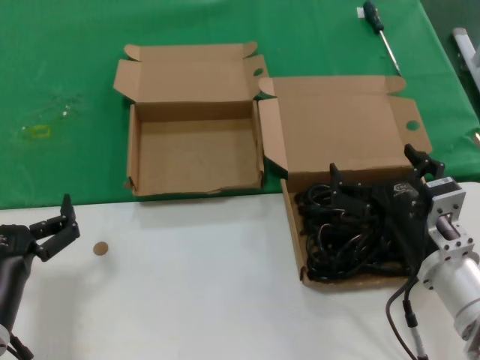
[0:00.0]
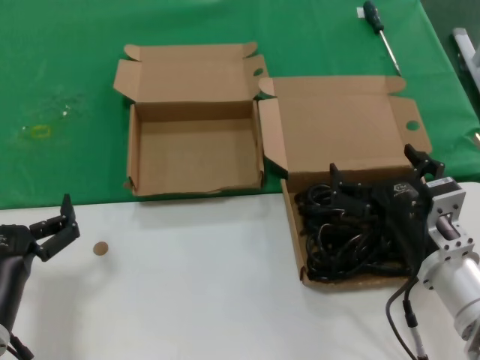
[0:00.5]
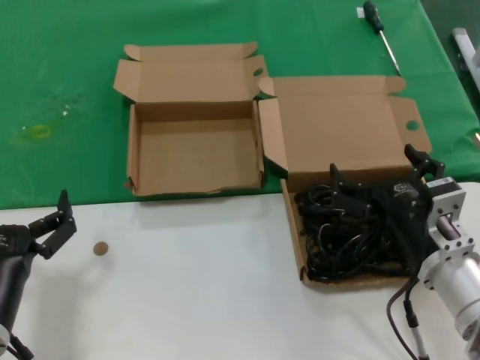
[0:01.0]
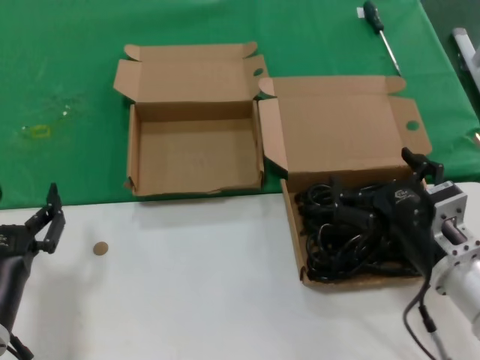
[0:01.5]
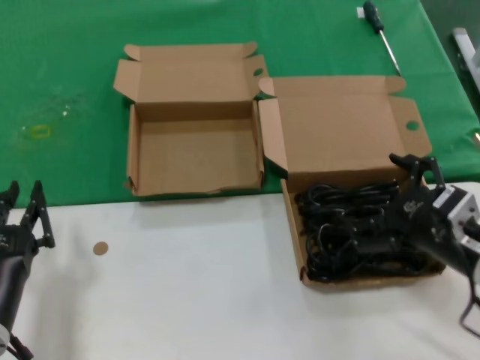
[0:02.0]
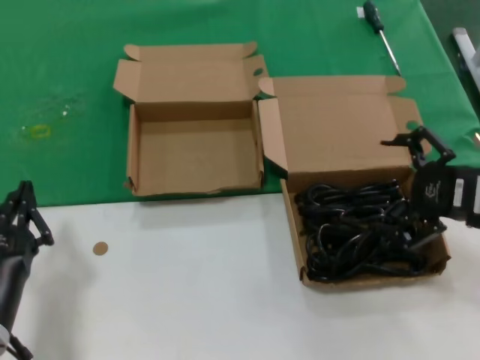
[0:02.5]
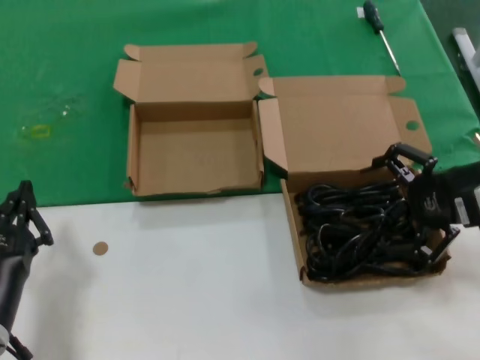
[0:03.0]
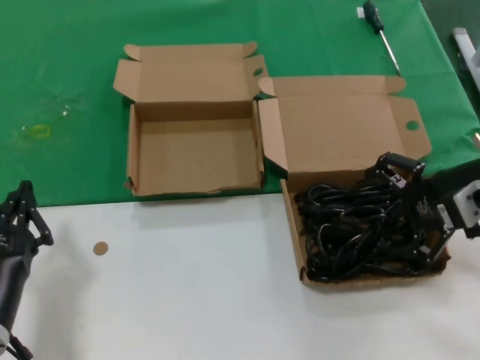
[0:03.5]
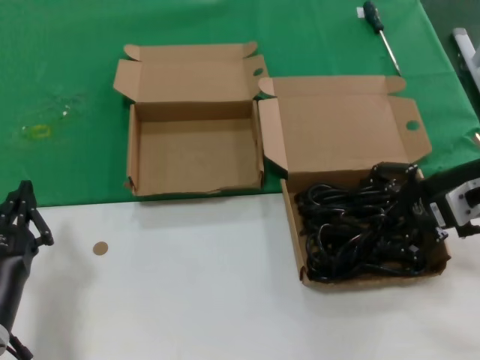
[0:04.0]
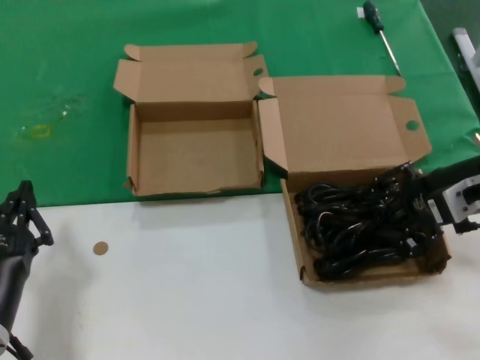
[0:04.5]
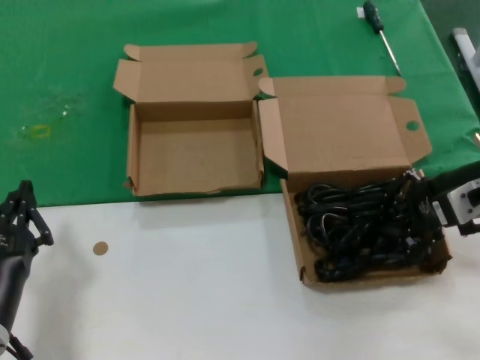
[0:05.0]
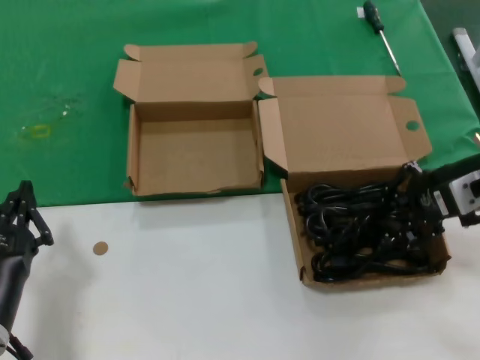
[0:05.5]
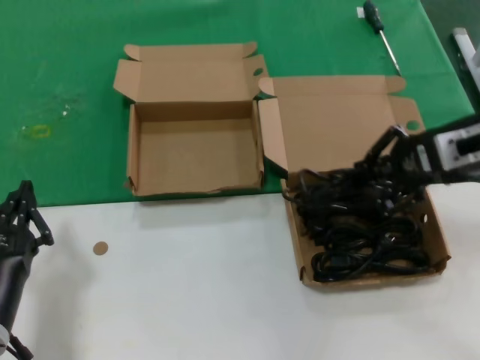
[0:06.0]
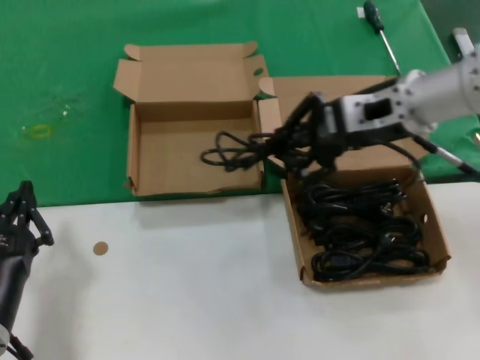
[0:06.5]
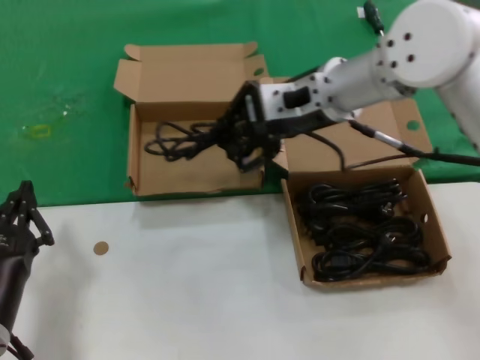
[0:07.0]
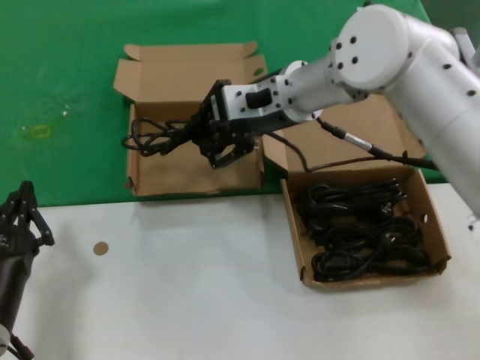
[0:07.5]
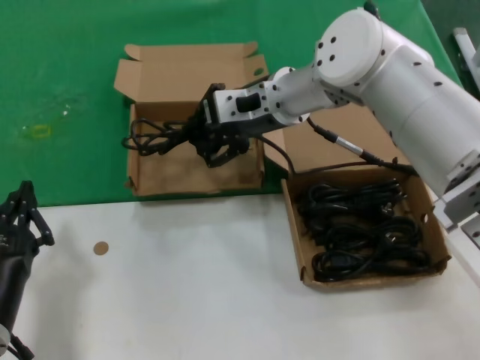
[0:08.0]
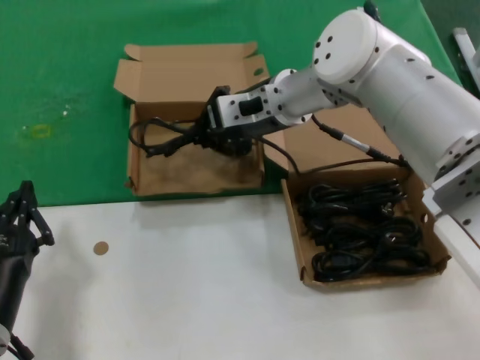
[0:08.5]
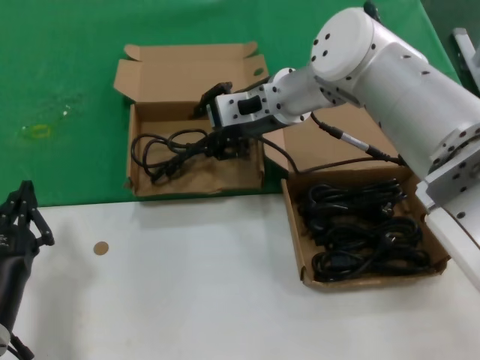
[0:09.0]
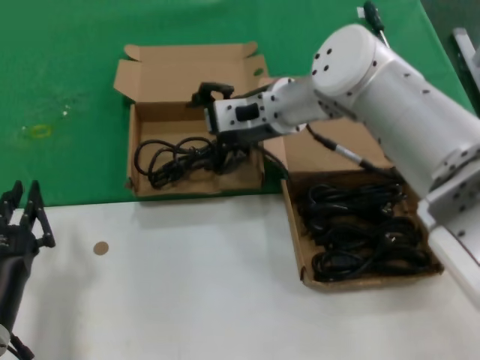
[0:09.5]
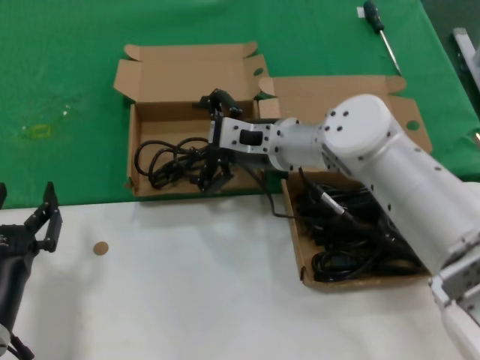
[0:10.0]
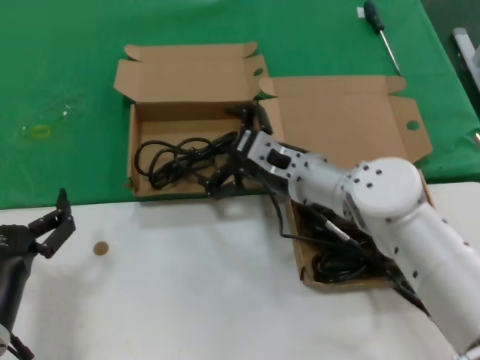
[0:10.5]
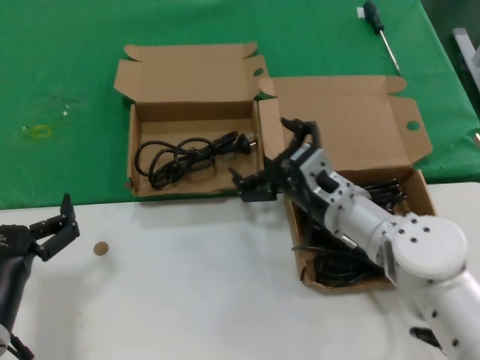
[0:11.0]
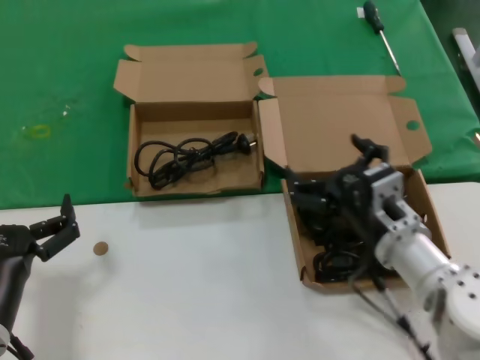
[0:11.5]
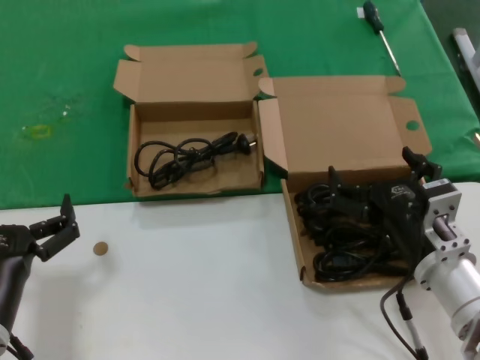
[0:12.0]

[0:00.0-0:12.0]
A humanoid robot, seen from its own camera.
Task of the whole recording: take the parts from the box containing them and put them into an empty box.
Step, 0:00.0 to 0:05.0: Grasp the data cable.
Step, 0:05.5 to 0:09.0: Place the data cable in the another box.
0:00.0 to 0:02.0: The right hand travels to the right by roughly 5 cm.
0:02.0 to 0:04.0: The right hand moves forward, upward and to the right, some 15 cm.
0:04.0 to 0:06.0: The right hand goes roughly 5 cm upward.
0:06.0 to 0:08.0: The right hand travels to the left and forward by some 25 cm.
0:08.0 to 0:10.0: The right hand heads downward, covering some 10 cm.
0:10.0 to 0:12.0: The right hand heads backward, to the right and downward, covering about 25 cm.

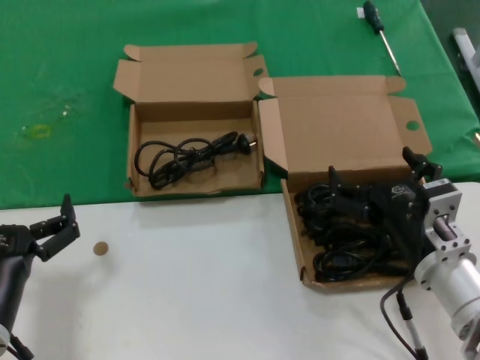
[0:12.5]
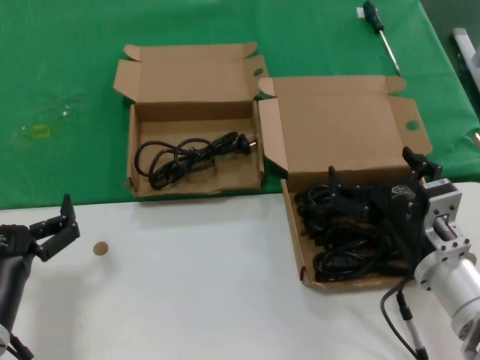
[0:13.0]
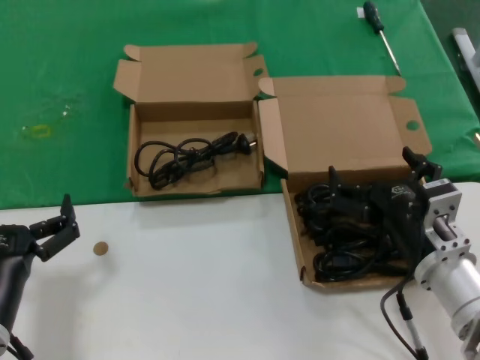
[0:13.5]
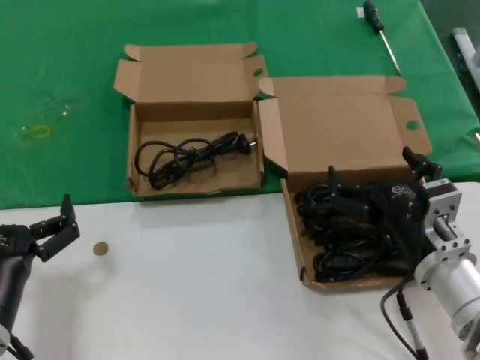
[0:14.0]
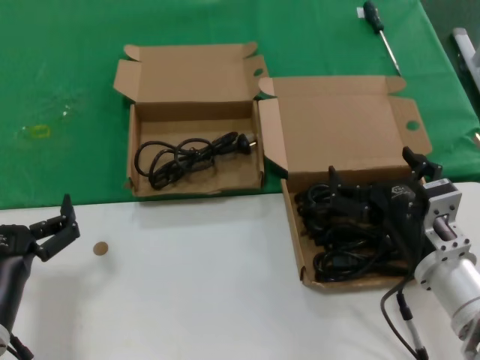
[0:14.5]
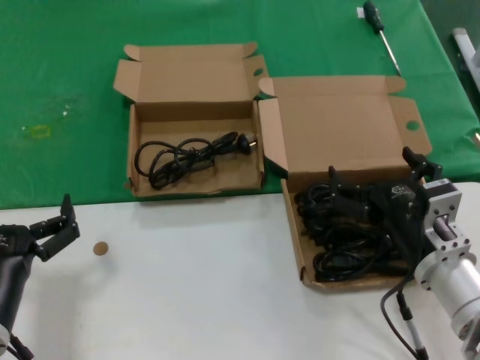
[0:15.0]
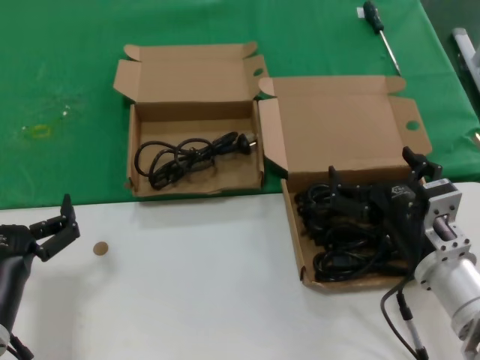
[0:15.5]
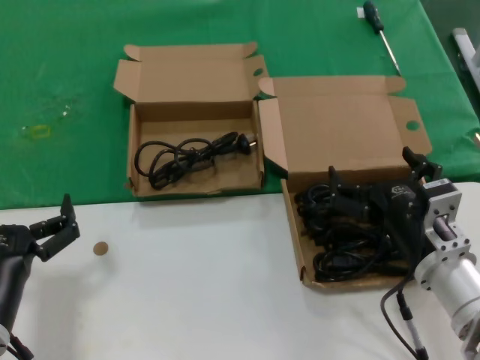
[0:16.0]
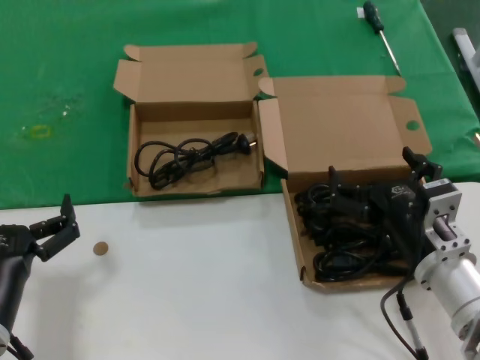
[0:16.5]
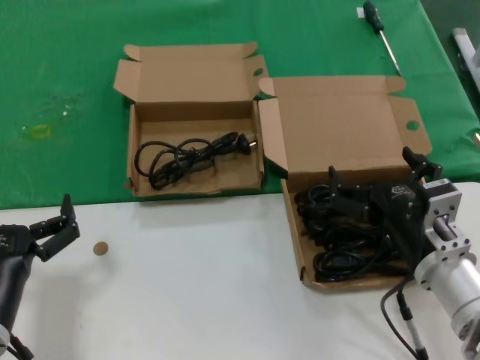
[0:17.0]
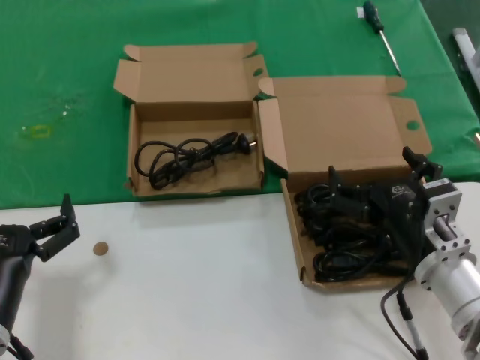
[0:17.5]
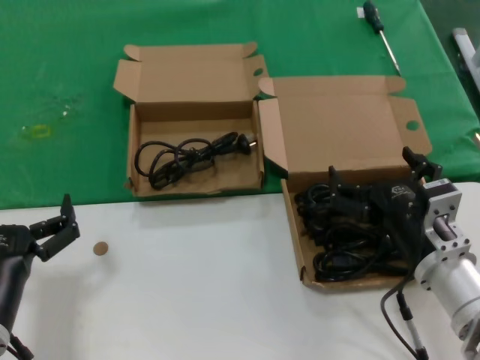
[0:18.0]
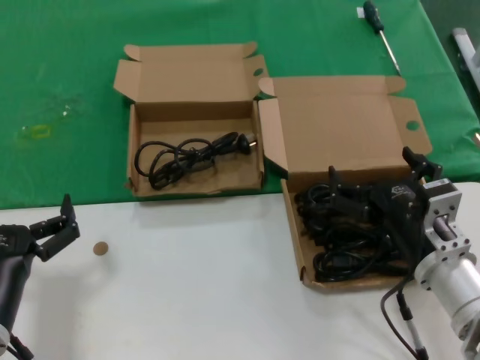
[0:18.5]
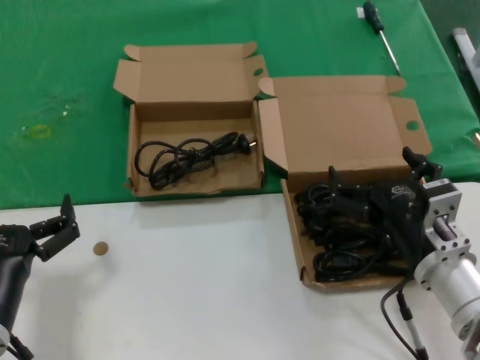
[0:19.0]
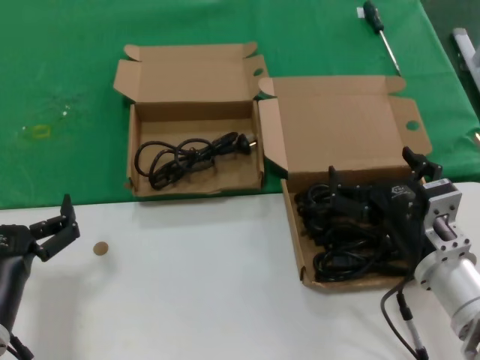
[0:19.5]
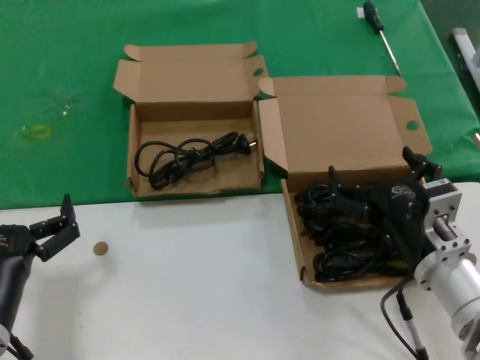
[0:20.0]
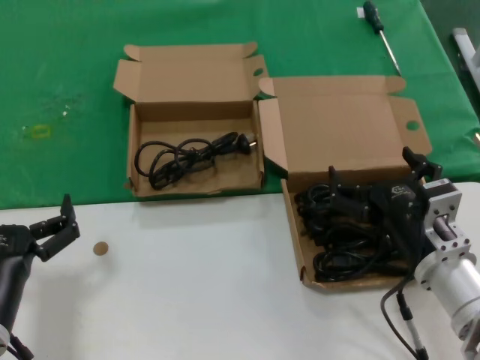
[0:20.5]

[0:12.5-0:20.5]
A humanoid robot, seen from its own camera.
Task of the whole recording: take the parts from the box containing them and put them into an empty box.
0:12.5 to 0:20.5: Both hands stay put.

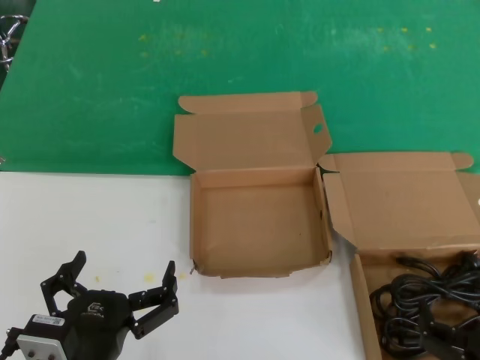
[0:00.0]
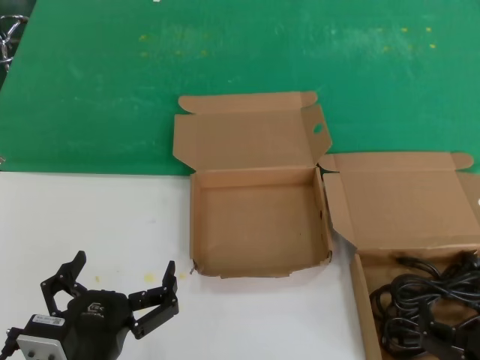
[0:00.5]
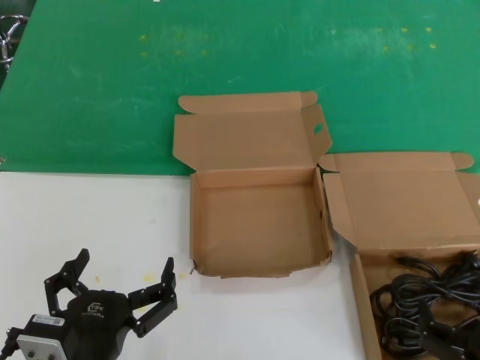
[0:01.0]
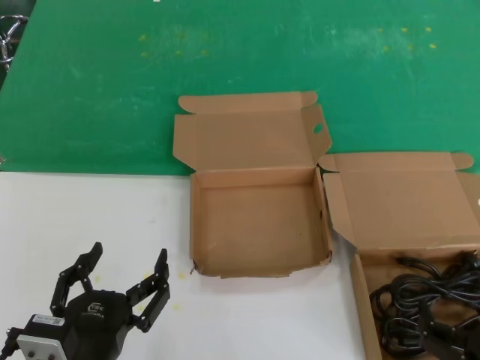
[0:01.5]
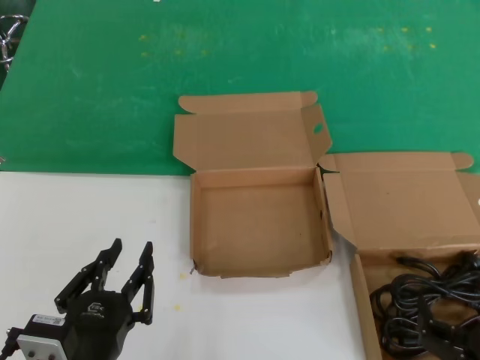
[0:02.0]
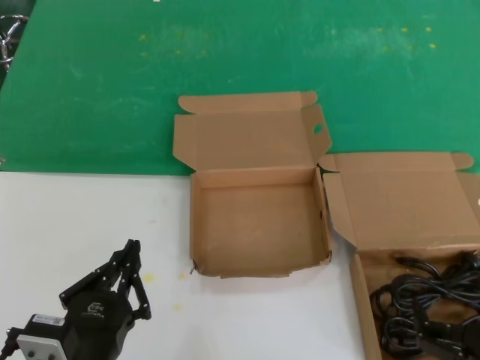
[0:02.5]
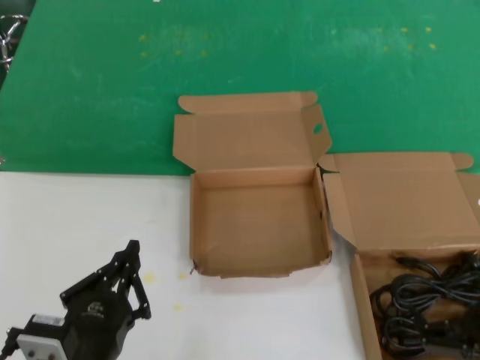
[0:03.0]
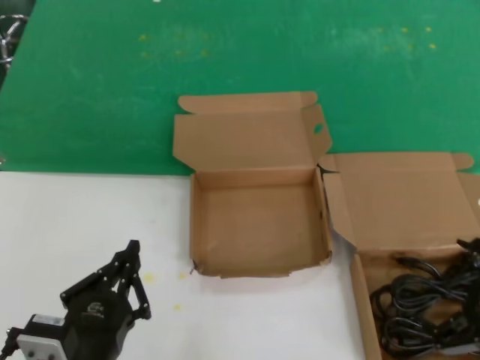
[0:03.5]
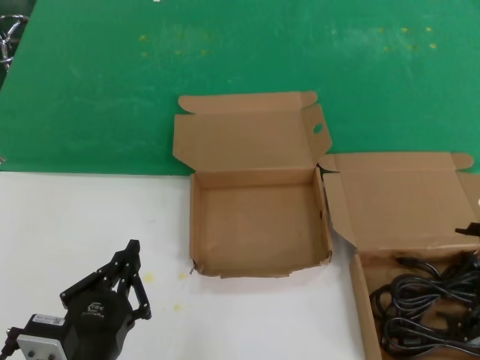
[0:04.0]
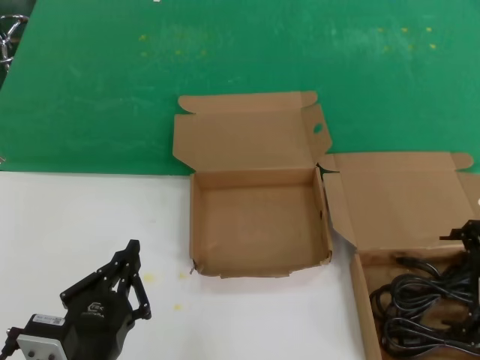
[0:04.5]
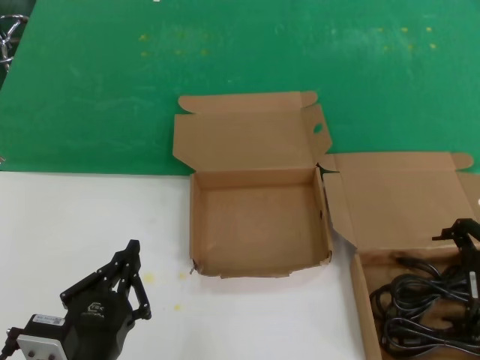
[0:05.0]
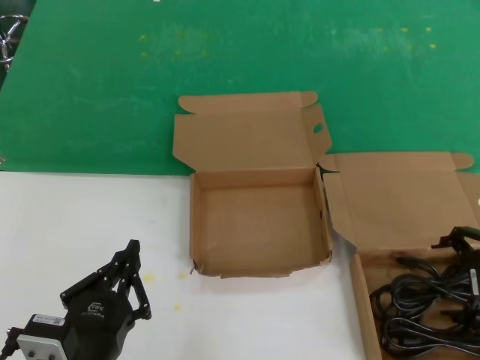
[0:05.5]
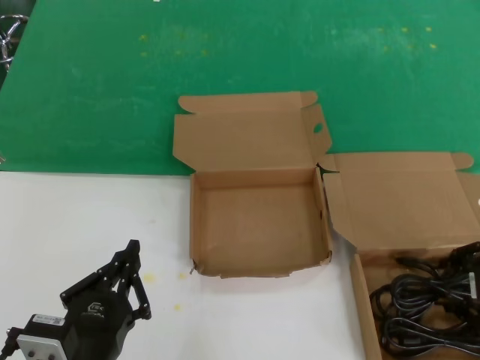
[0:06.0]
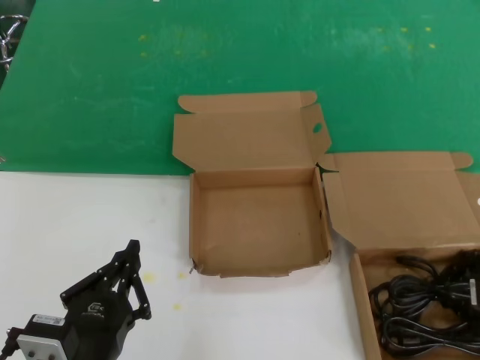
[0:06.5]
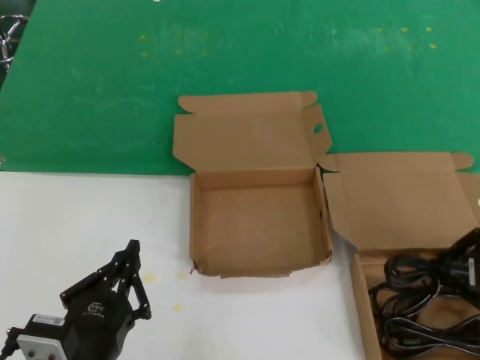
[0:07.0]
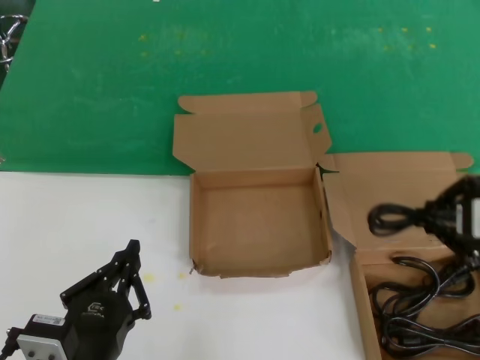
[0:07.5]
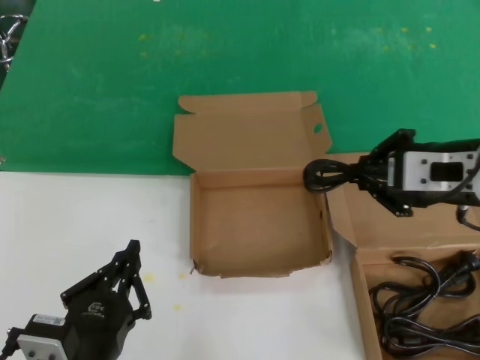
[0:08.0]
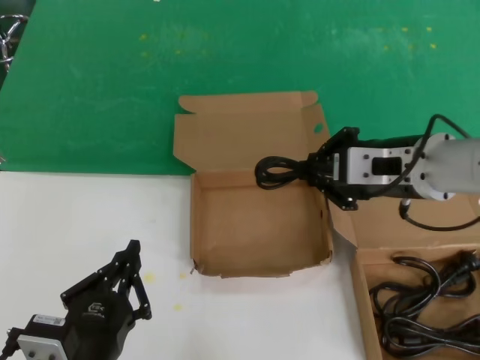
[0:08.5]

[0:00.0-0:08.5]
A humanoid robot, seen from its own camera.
Task of the whole recording: take the parts from the box containing them and put them into an empty box.
Step, 0:00.0 to 0:06.0: Grasp the data cable.
0:00.0 to 0:02.0: The two hands keep their place.
0:02.0 to 0:04.0: The right hand is displaced upward, forward and to the right by approximately 20 cm.
0:04.0 to 0:06.5: The right hand is displaced forward by approximately 5 cm.
0:06.5 to 0:08.5: The right hand travels to the left and upward by some 20 cm.
